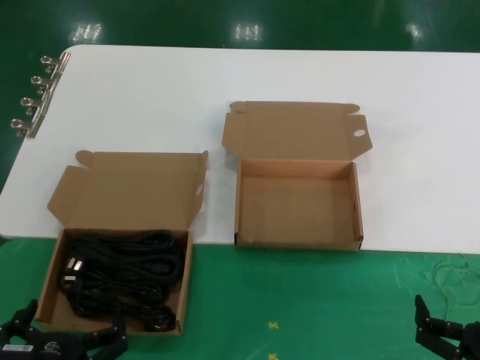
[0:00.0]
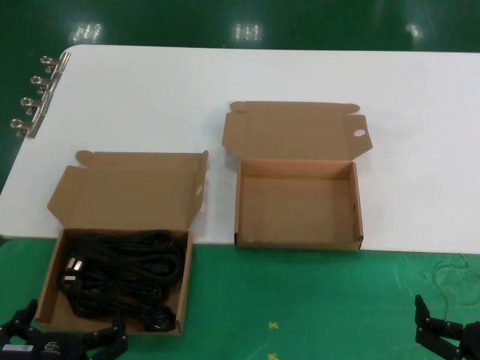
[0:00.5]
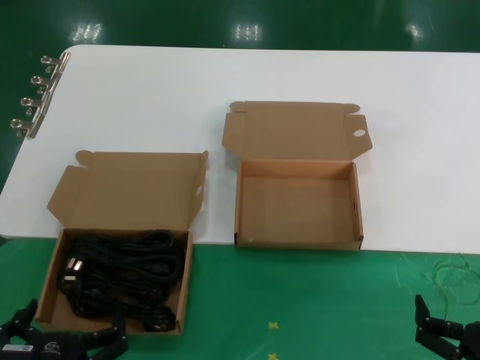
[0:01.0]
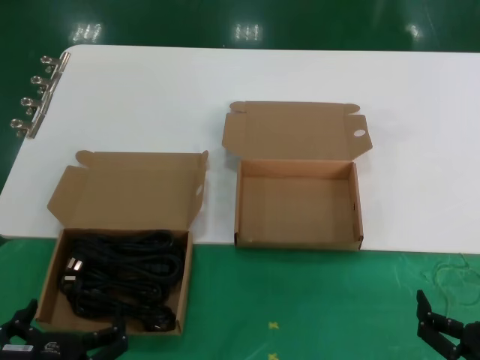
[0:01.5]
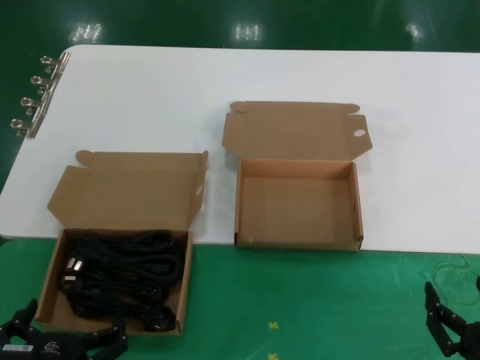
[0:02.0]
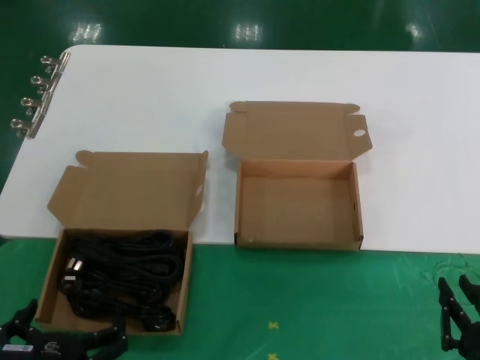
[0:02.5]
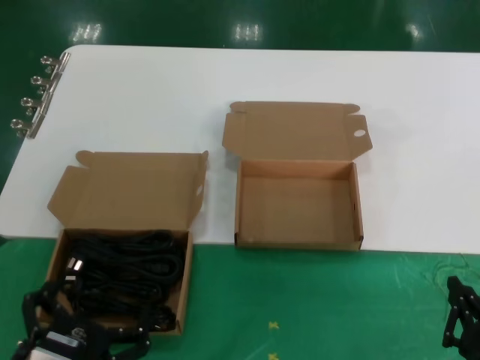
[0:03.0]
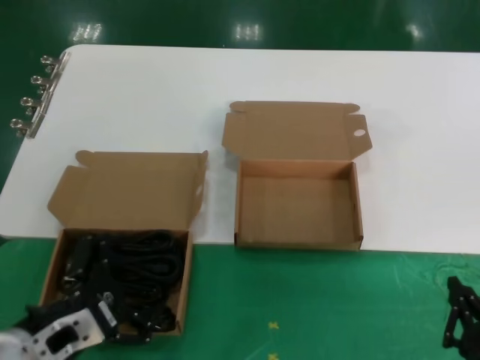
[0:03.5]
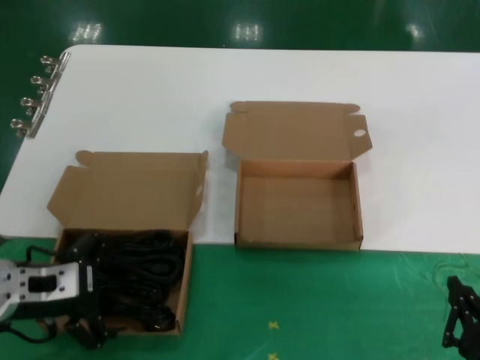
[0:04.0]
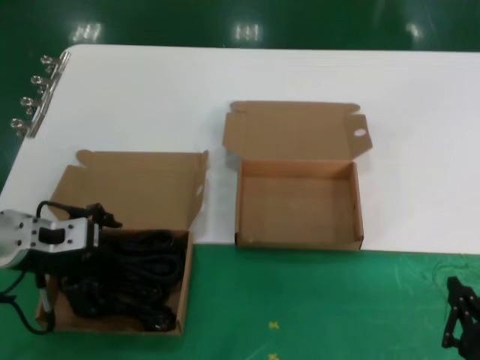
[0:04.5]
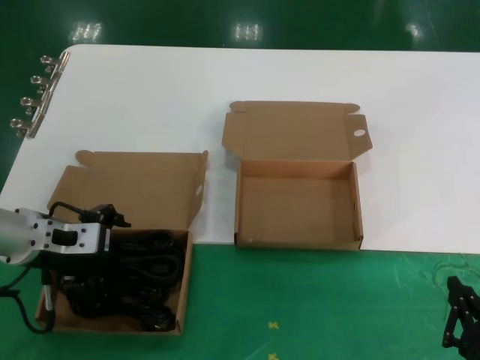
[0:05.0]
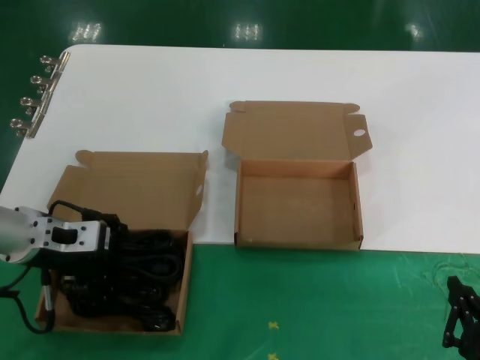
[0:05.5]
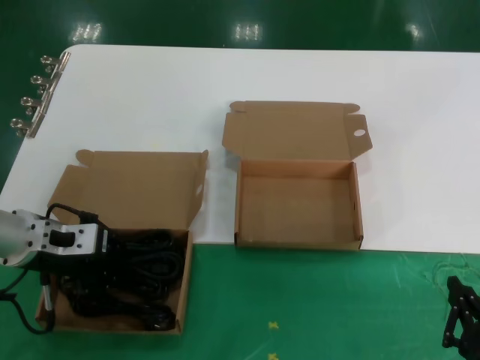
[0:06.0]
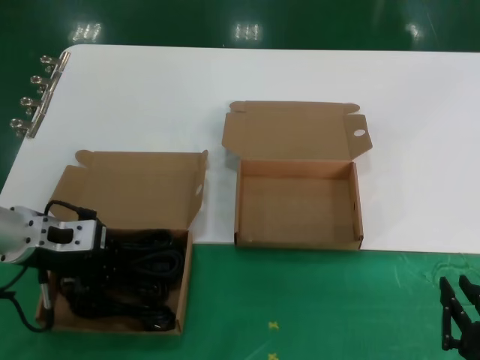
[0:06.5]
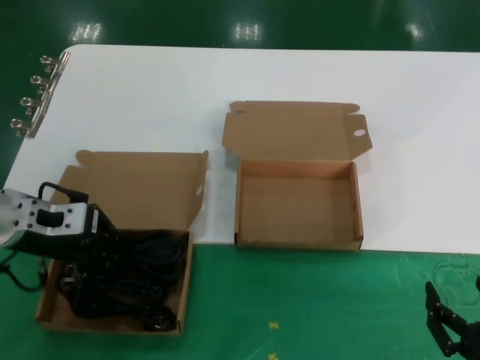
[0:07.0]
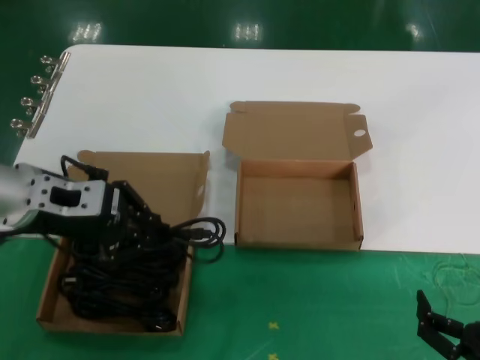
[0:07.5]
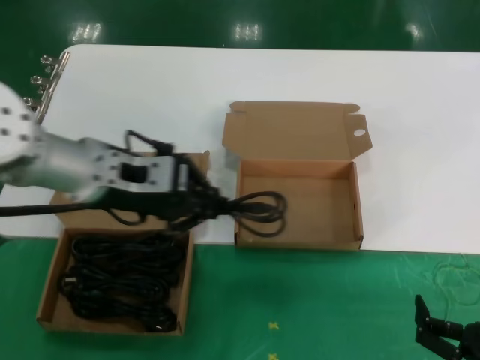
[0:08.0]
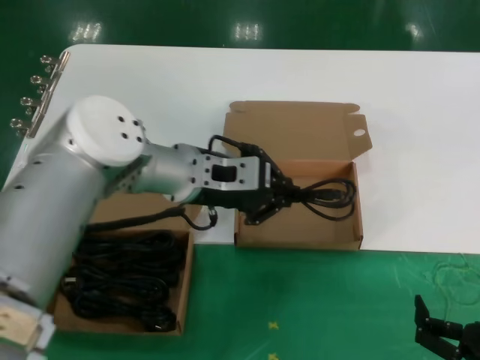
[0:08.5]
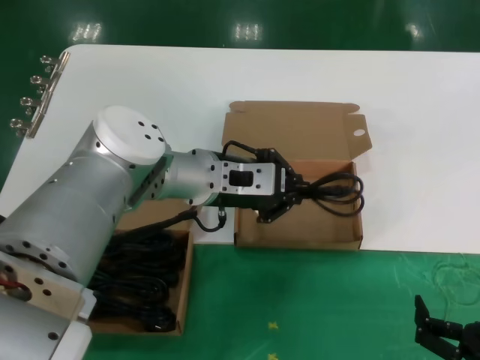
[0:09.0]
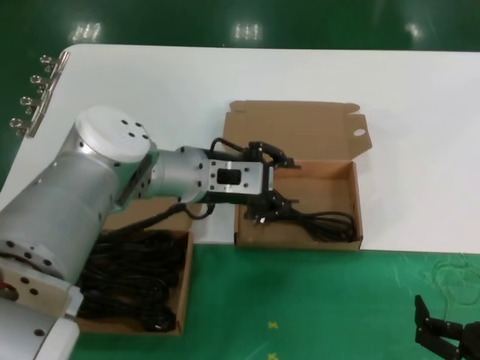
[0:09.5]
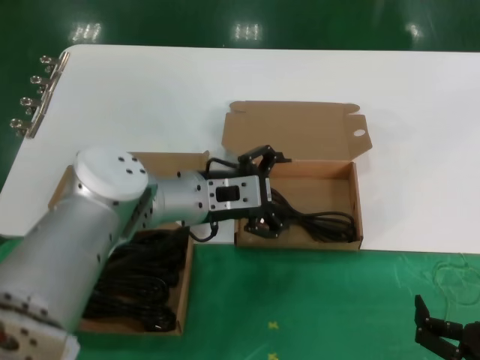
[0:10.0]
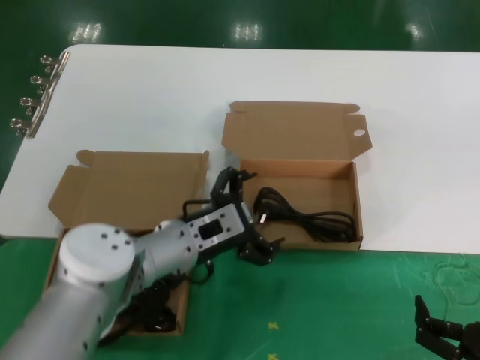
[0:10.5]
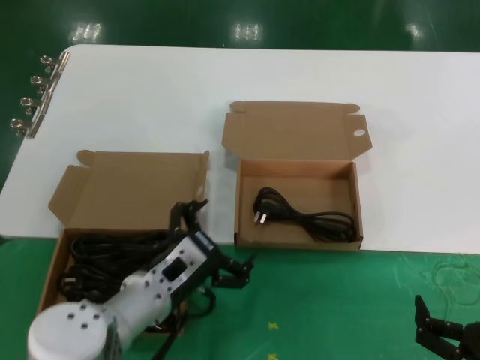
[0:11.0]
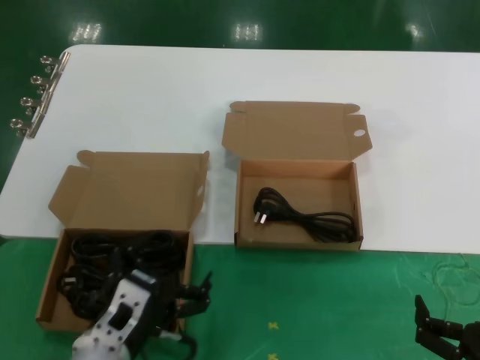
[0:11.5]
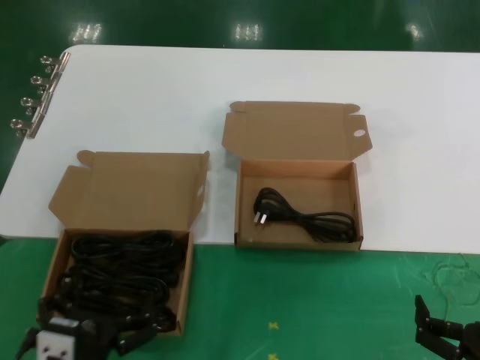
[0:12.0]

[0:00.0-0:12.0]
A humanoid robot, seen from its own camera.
Task of the whole recording: take the parts from the box containing them and put them into an empty box.
Step, 0.0 to 6.5 s: Grasp the data cable.
Step, 7.0 to 9.5 s: Place the data cable in the another box.
0.0 to 2.0 s: Neither hand changes place.
2.0 to 4.0 s: The left hand is displaced forward, upward and to the left by about 25 cm.
4.0 to 6.0 s: The left hand travels forward by roughly 10 cm.
6.0 to 8.0 s: The left hand shifts approximately 15 cm to the right and upward.
8.0 to 10.0 s: The left hand heads to the right, downward and forward, covering about 15 cm.
10.0 to 12.0 s: The left hand is displaced backward, downward and to the left by roughly 30 cm.

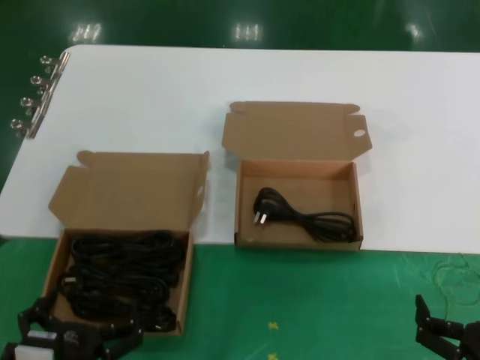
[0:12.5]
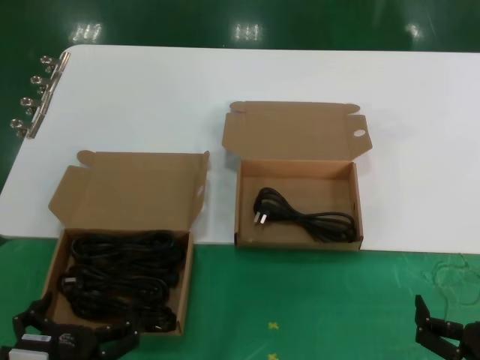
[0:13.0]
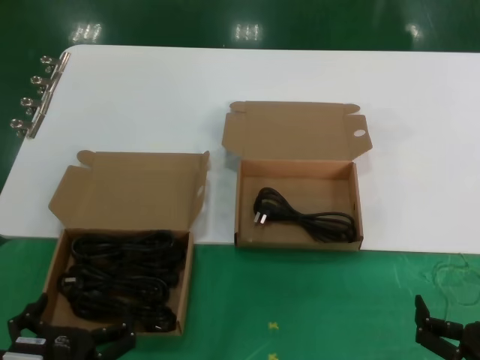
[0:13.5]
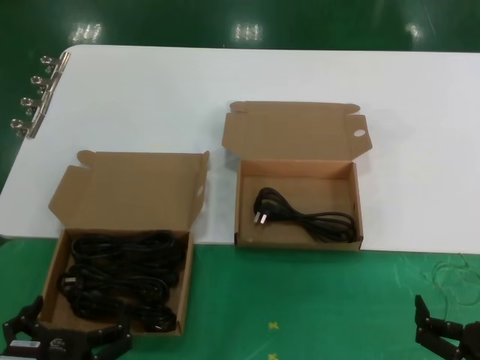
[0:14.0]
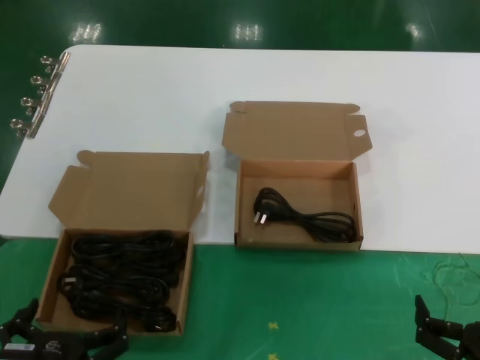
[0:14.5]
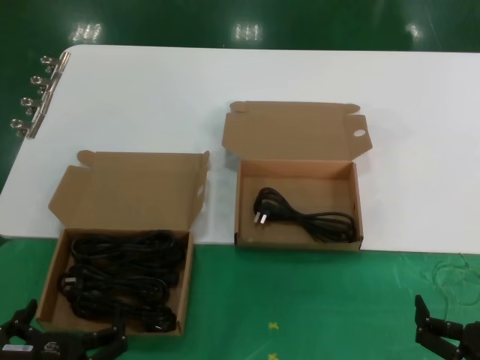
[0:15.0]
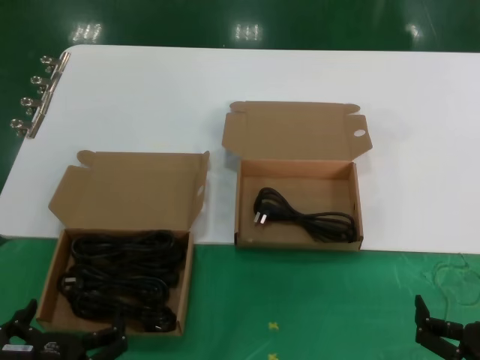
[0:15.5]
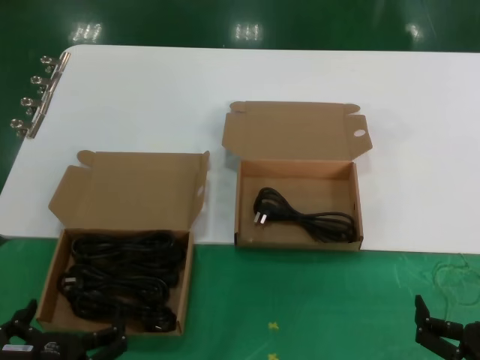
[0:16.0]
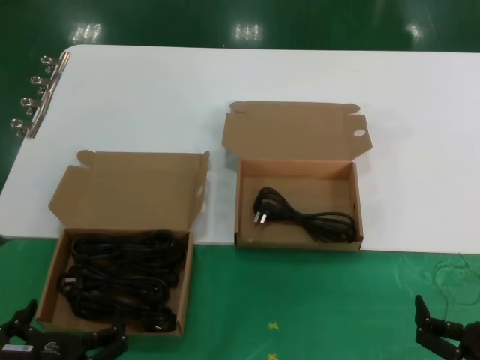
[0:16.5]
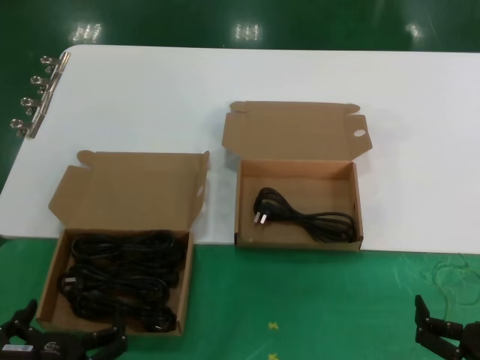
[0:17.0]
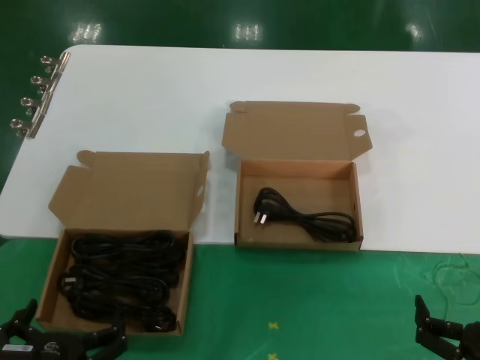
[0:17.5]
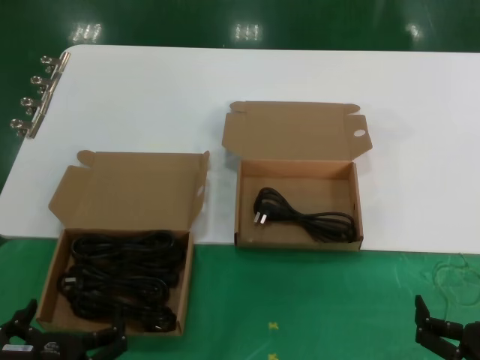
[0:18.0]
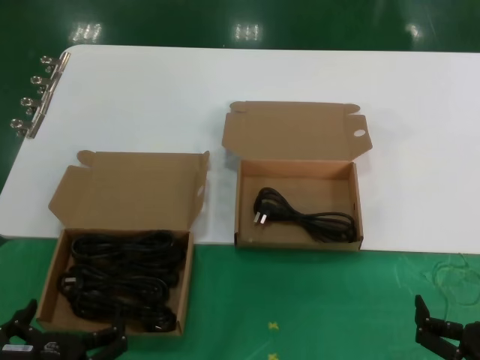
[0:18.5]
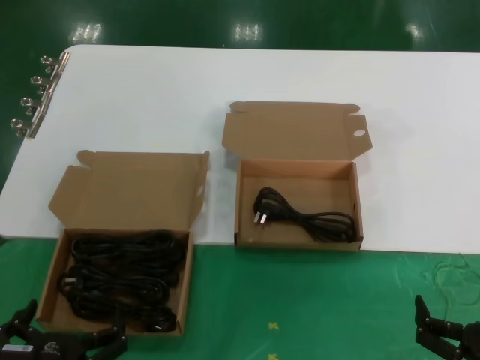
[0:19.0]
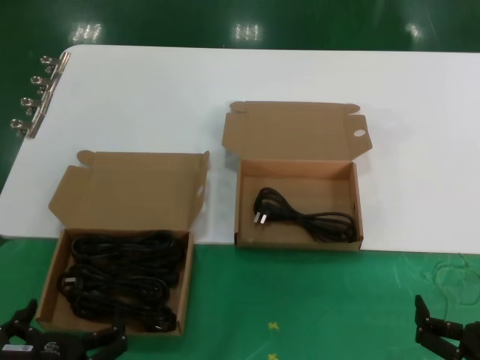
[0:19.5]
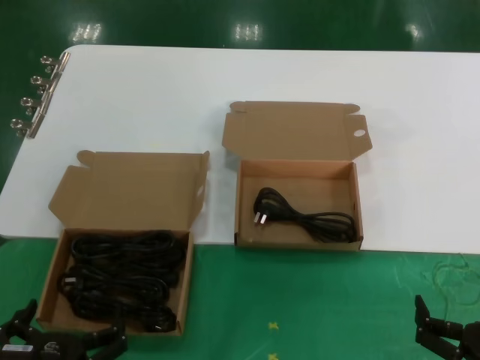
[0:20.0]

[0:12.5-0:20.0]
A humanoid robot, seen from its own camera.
Task of the whole recording: take the parts from the box containing them and put them into an empty box.
12.5 to 14.5 s: There are only small adjustments of the hands.
14.5 to 20.0 s: Both hands stay about where they are.

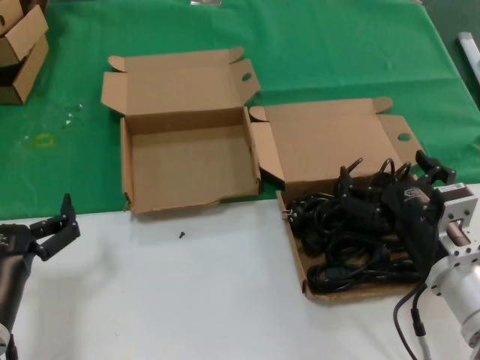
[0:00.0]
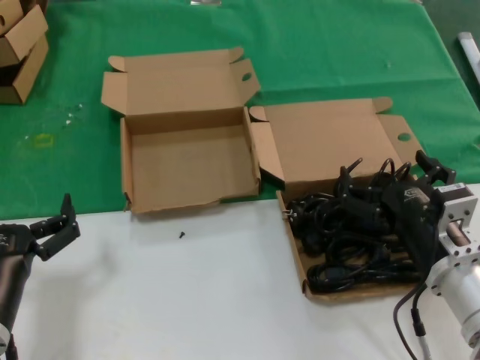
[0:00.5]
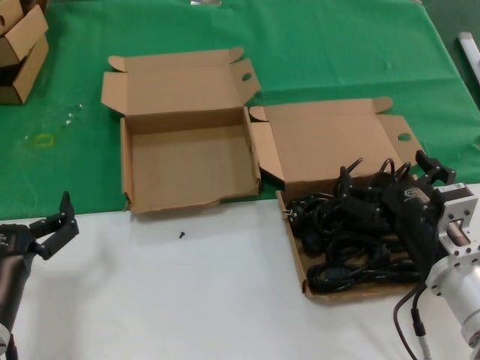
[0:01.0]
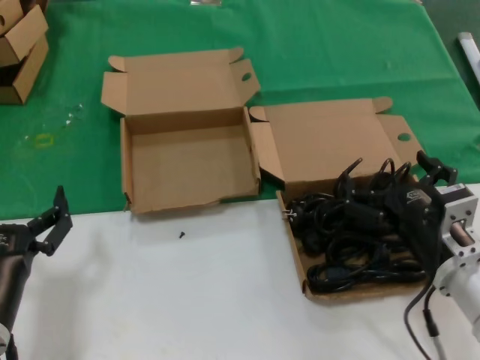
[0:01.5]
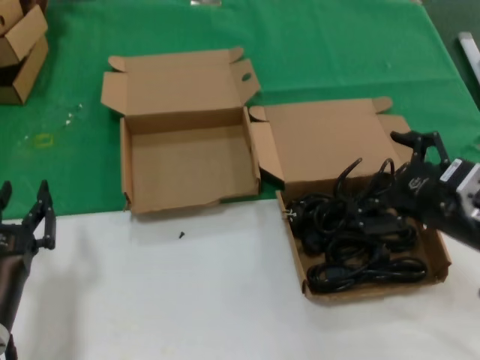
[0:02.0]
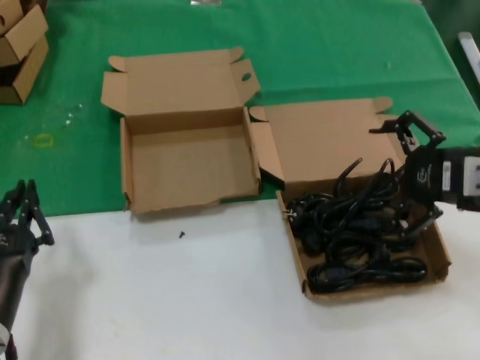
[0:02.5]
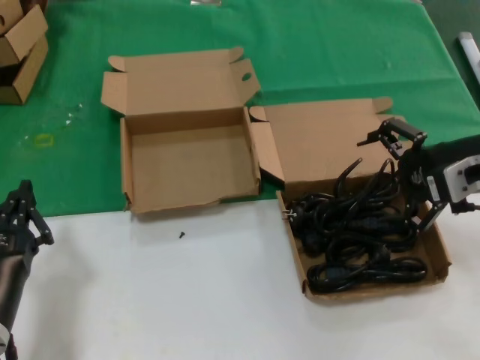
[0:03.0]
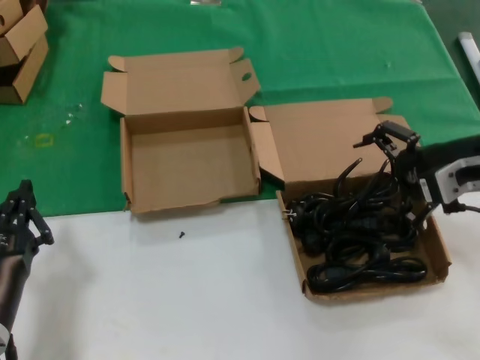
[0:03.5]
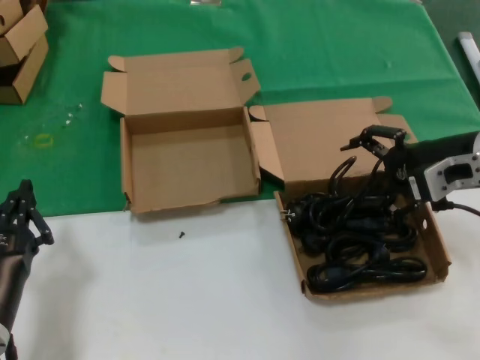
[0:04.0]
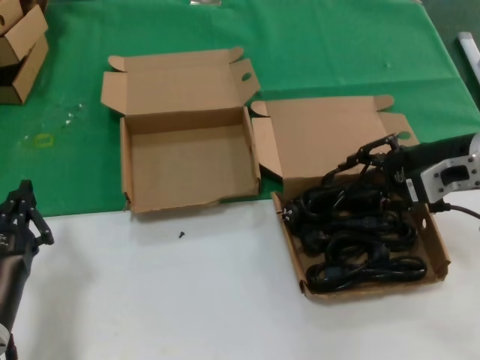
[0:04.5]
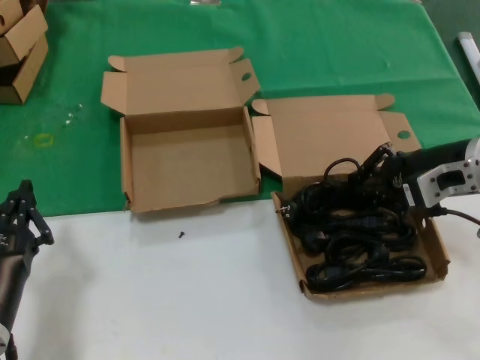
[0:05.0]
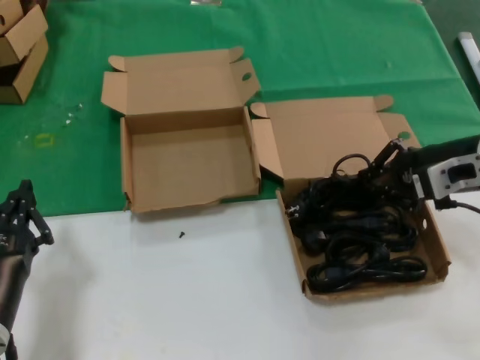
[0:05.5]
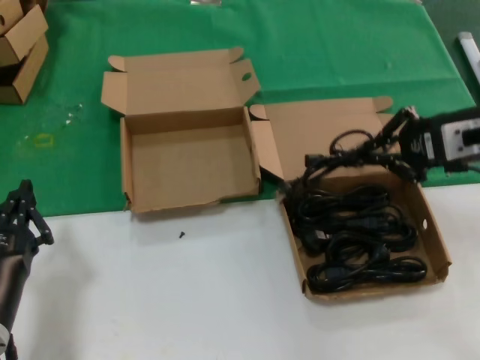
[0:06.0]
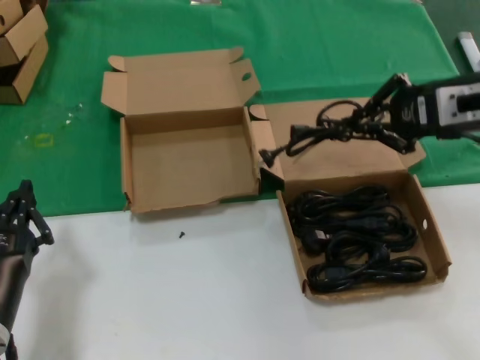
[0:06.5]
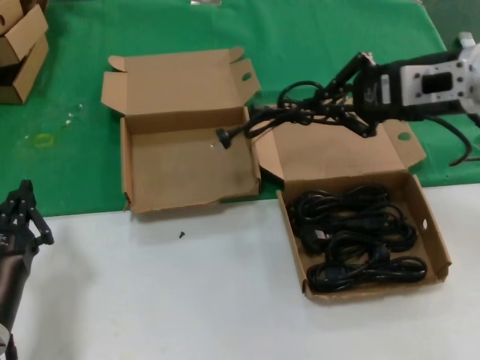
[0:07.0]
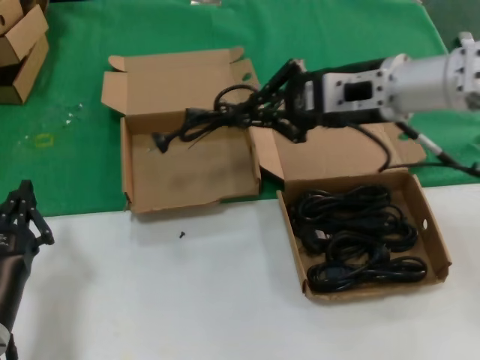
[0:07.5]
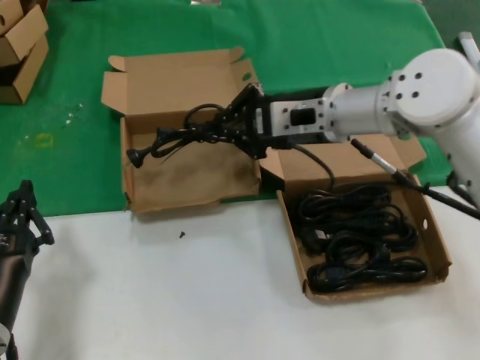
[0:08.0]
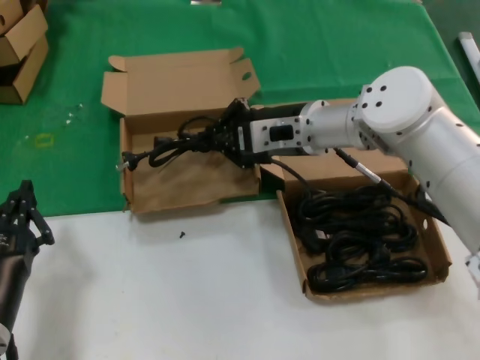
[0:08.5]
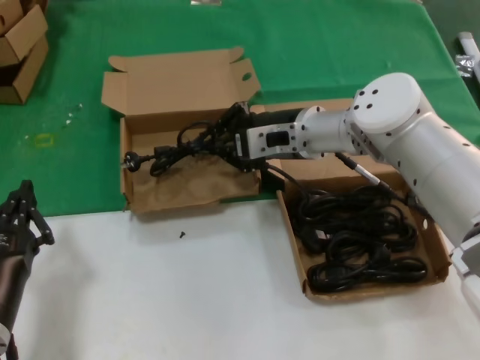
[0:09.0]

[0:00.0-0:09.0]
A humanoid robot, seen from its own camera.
Task of the whole recording: take the parts from the box containing them and put them into an empty box.
Step, 0.0 to 4.5 s: Grasp the data cable.
0.0 to 2.0 s: The right hand goes some 10 cm upward and to the right.
2.0 to 4.5 s: The right hand heads forward and upward, covering some 15 cm.
4.5 to 7.0 s: The right hand shifts roughly 10 cm upward.
7.0 to 9.0 s: The right hand moves to the left, downward and forward, about 20 cm.
